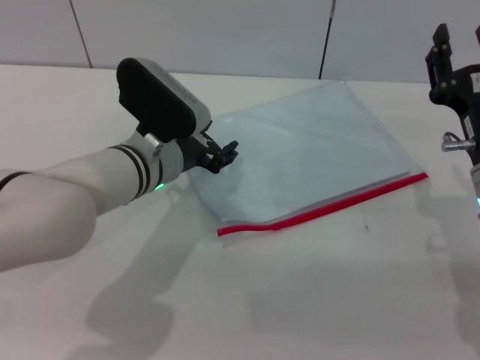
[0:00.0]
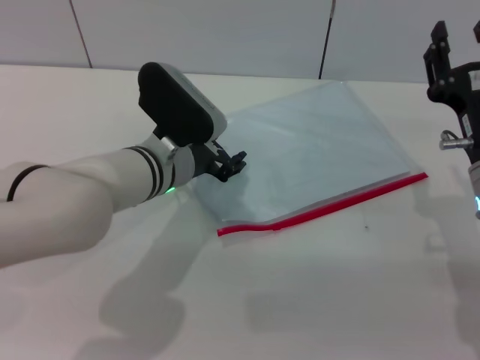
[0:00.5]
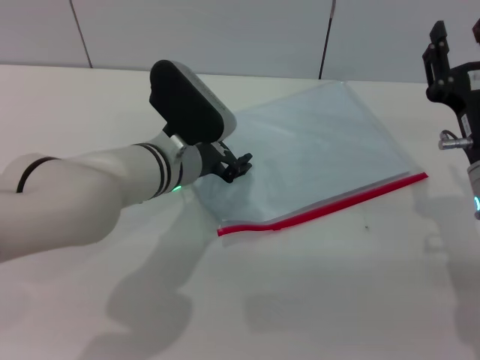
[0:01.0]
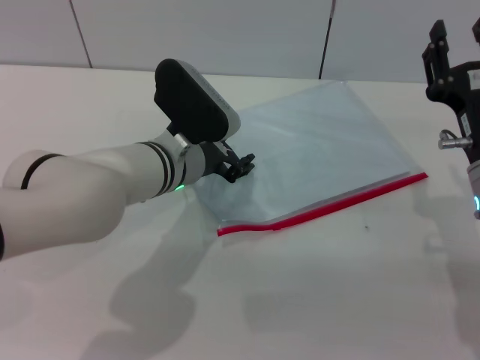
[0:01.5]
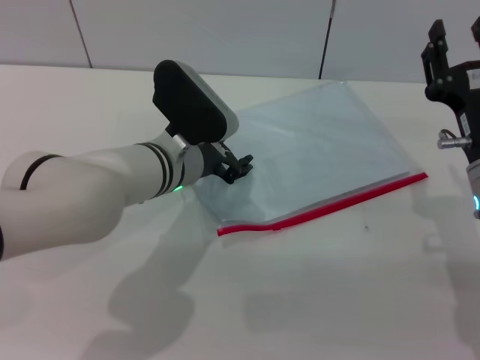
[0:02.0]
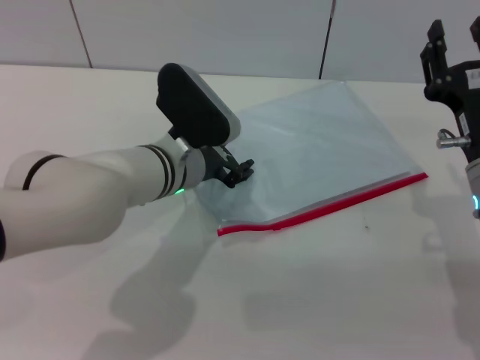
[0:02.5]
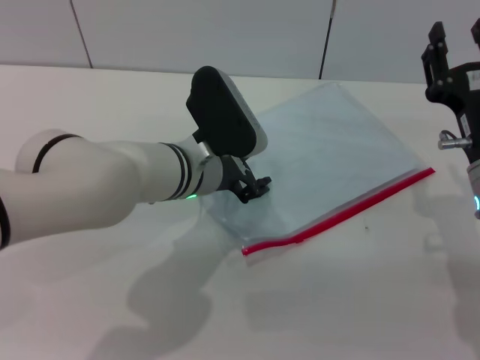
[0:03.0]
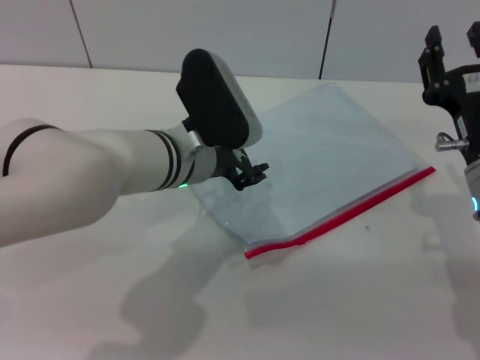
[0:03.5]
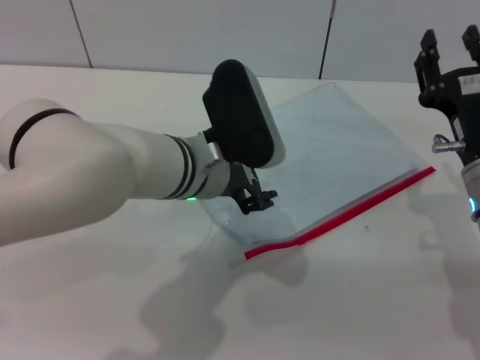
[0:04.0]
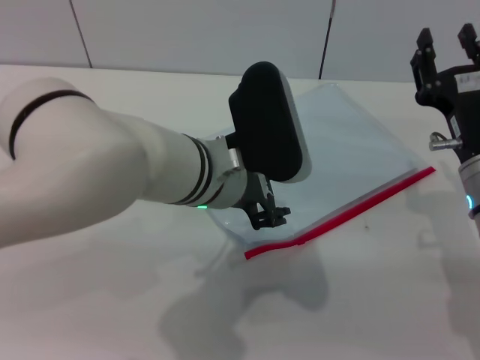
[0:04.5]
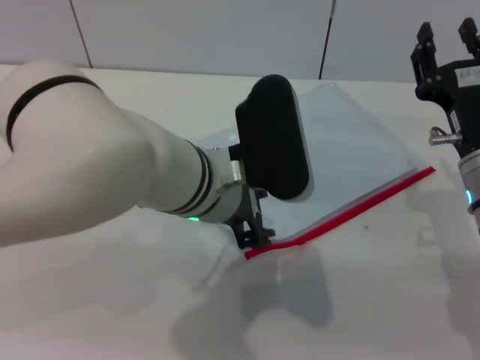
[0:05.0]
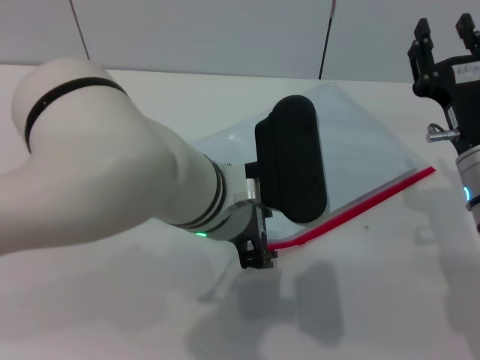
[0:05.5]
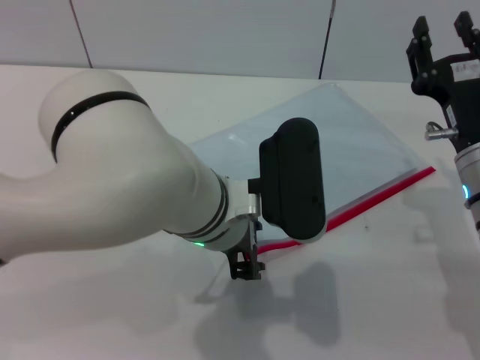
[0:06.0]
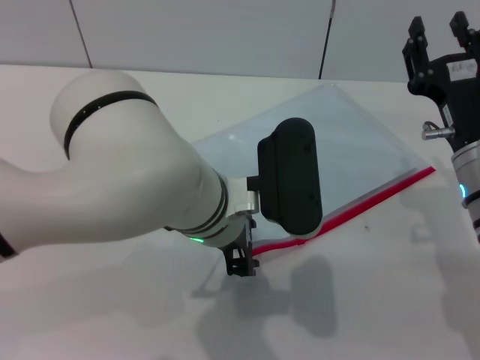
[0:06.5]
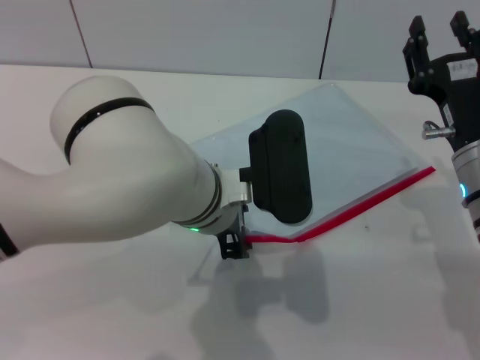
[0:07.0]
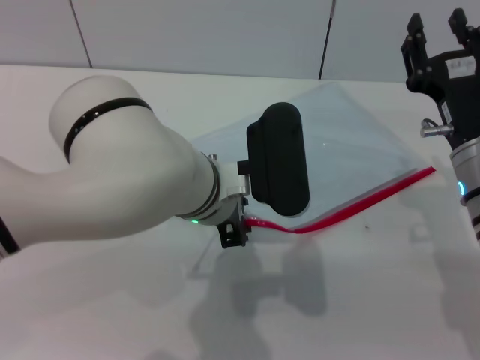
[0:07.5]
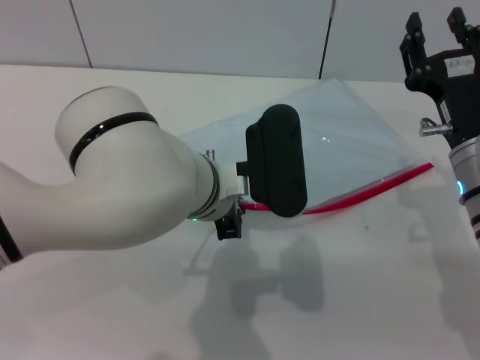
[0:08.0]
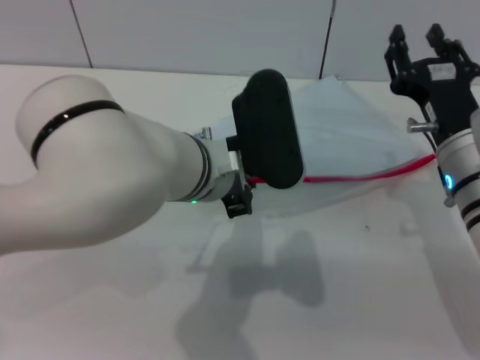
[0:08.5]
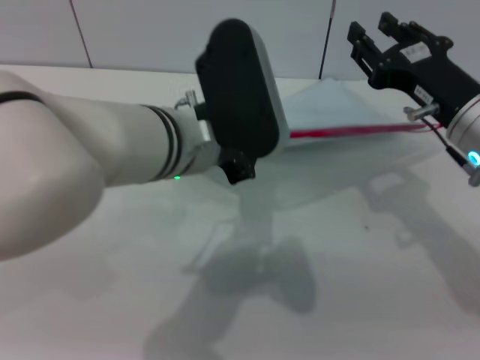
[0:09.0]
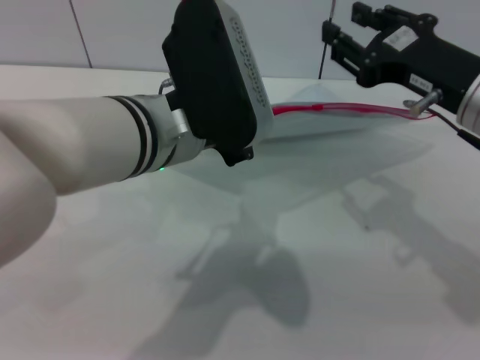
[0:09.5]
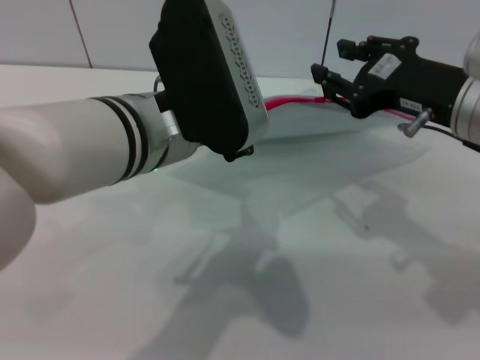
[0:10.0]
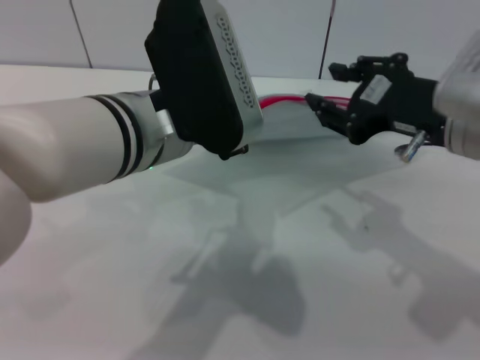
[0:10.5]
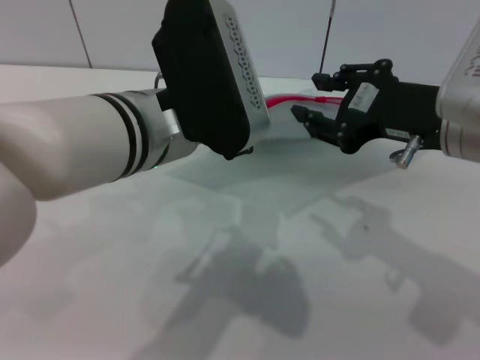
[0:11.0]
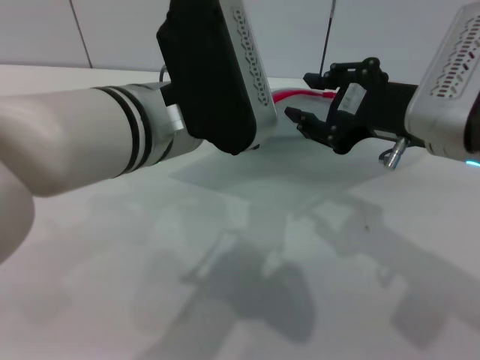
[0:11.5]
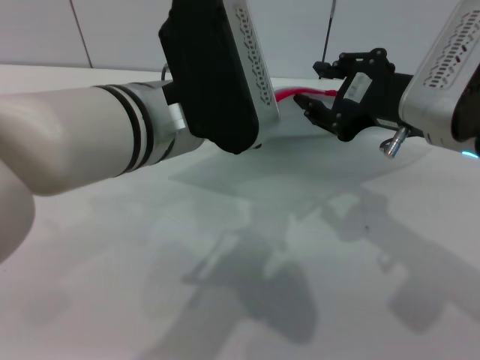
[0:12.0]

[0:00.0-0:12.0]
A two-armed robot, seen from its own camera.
Step, 0:00.0 to 0:08.5: Pick up the transparent plastic bag with the left gripper.
0:00.0 to 0:02.0: The grippers stay close to where they were, moving slightly.
0:02.0 to 0:04.0: The left gripper shifts by about 5 cm.
0:04.0 to 0:06.0: The left gripper shifts some 5 cm backward.
0:06.0 to 0:08.0: The left gripper closes its fingers.
0:08.0 to 0:10.0: Both grippers travel together upward, approximately 10 cm.
0:10.0 to 0:12.0: The grippers make only small movements.

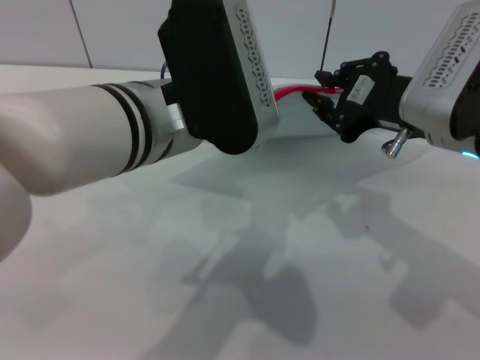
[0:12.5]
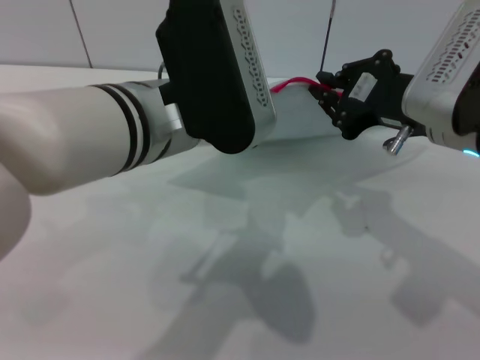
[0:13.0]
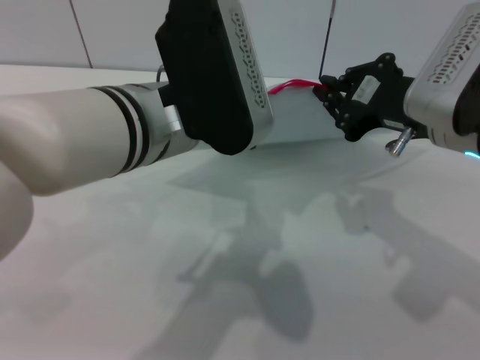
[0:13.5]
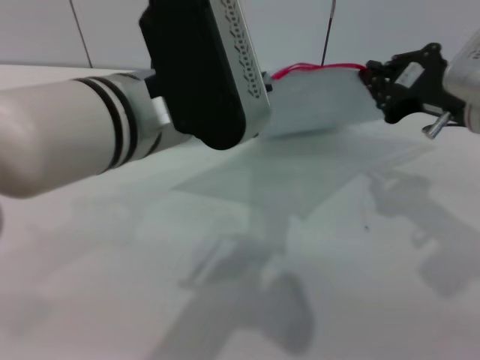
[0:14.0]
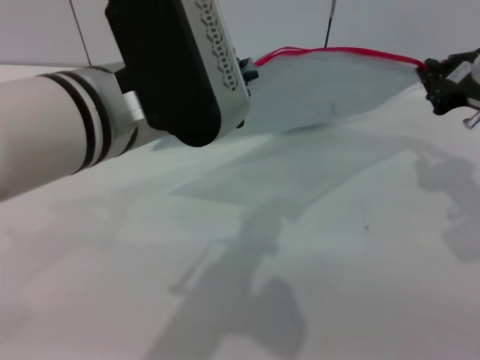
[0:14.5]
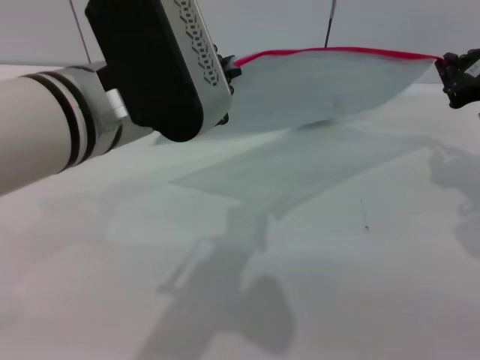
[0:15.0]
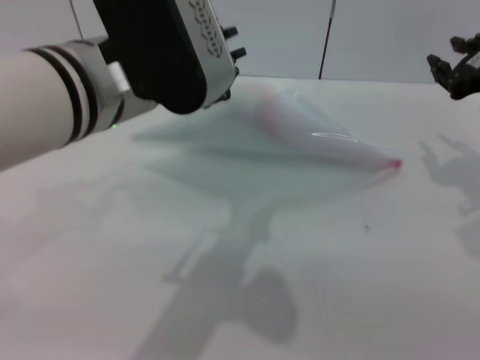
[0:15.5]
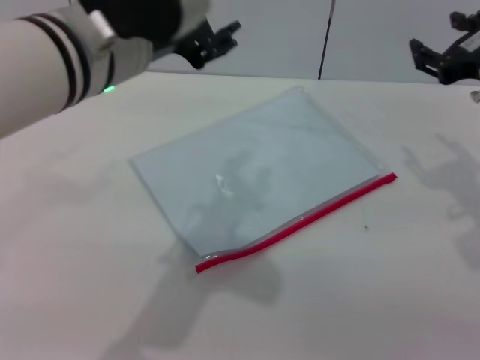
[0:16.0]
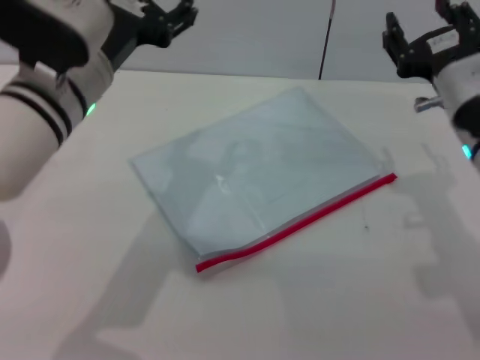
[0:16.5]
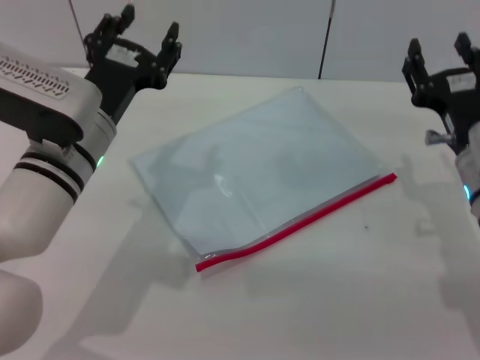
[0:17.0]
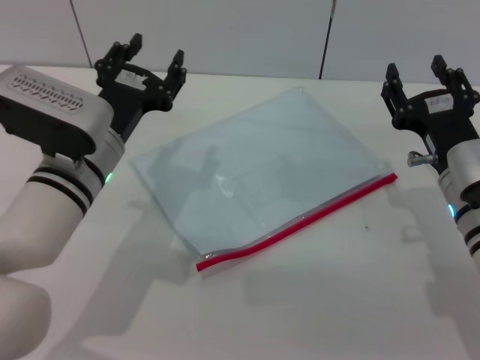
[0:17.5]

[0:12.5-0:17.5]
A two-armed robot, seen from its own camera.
Step, 0:12.5 to 0:15.0: Pulling up the zipper on the transparent plastic bag with the right gripper to close it.
Step, 0:15.5 to 0:16.0: Place the transparent plastic bag.
0:12.5 to 0:15.0: The right gripper moves to the right and forward, some 10 cm.
0:15.0 to 0:17.5: The left gripper goes roughly 15 cm downward, and opens. The right gripper shifts about 15 cm downward, to the left and backward, and opens up.

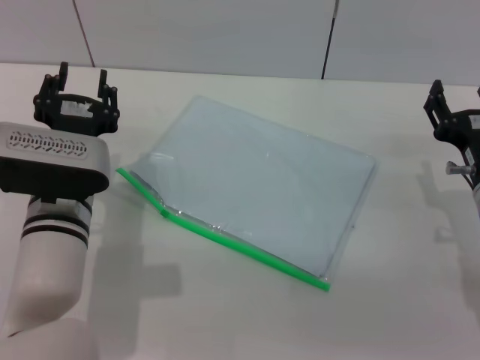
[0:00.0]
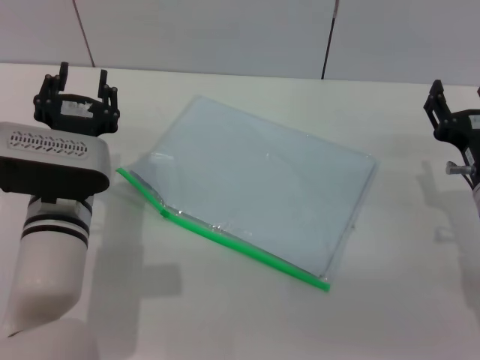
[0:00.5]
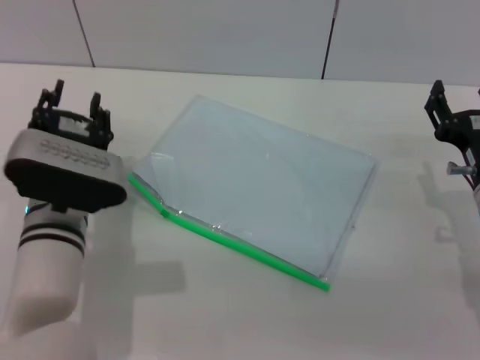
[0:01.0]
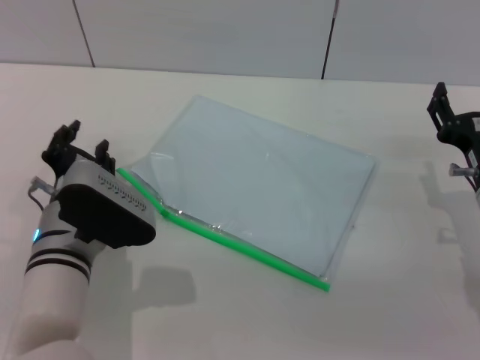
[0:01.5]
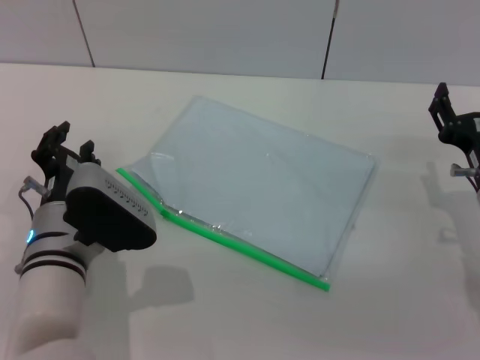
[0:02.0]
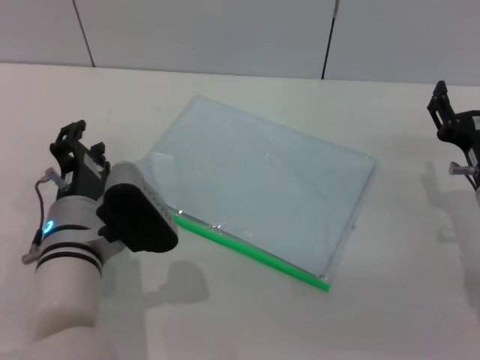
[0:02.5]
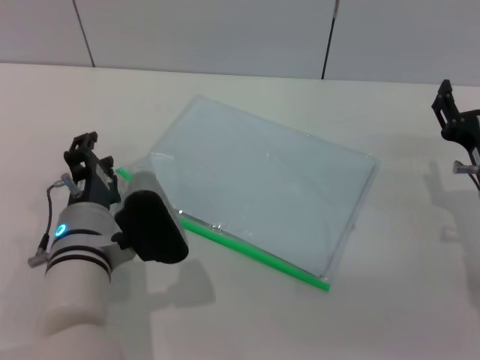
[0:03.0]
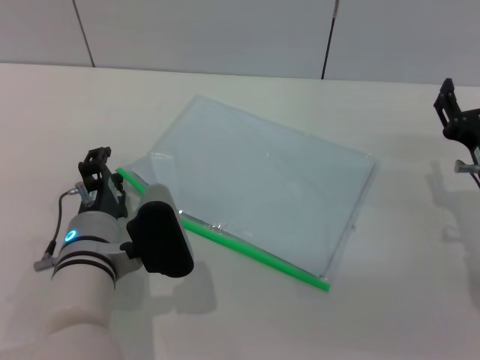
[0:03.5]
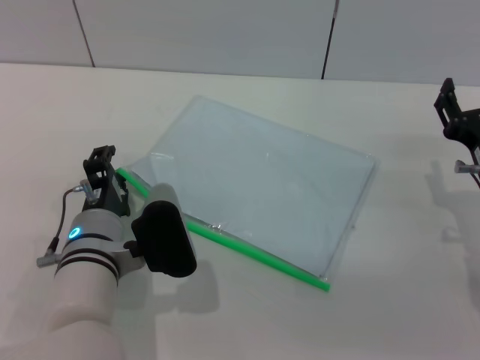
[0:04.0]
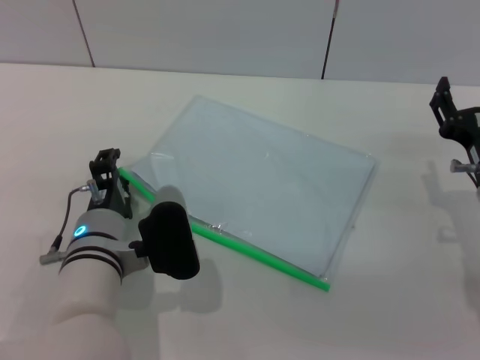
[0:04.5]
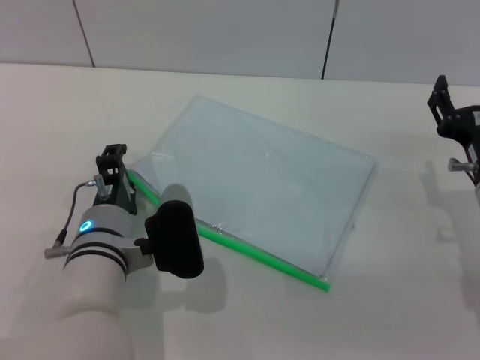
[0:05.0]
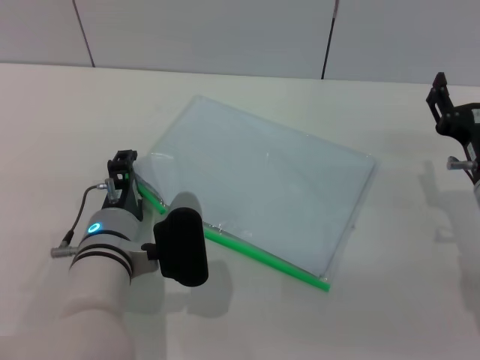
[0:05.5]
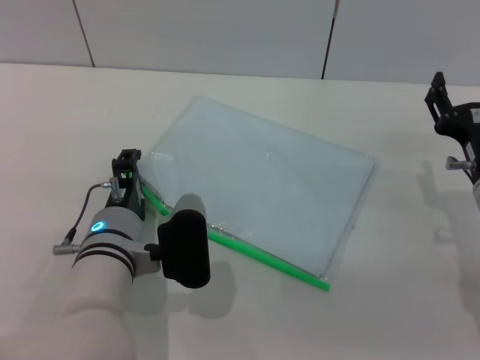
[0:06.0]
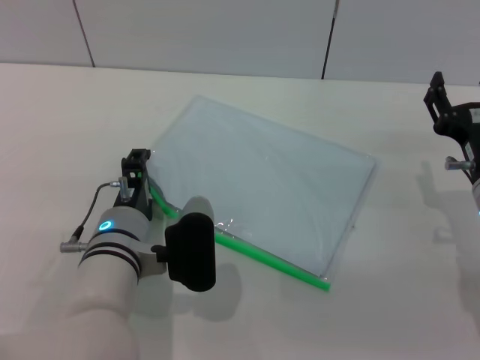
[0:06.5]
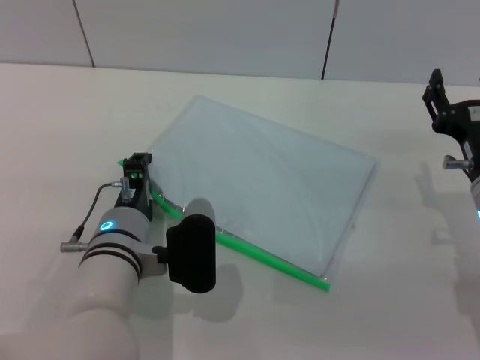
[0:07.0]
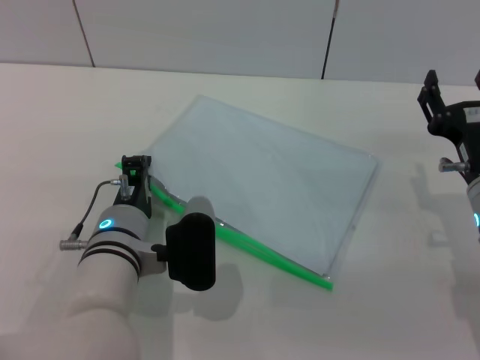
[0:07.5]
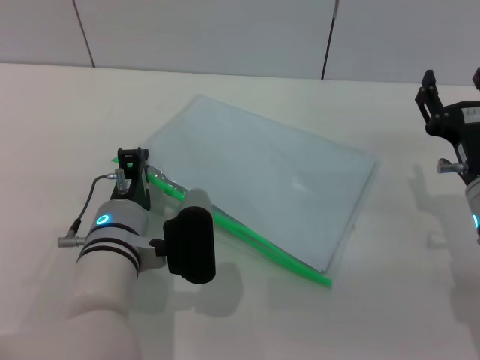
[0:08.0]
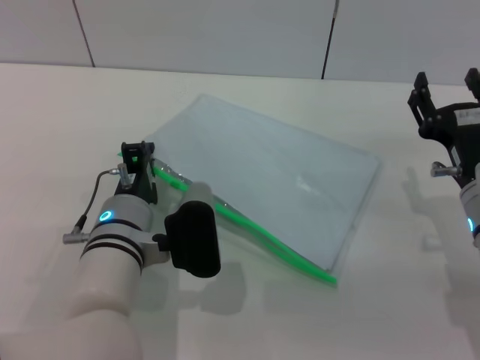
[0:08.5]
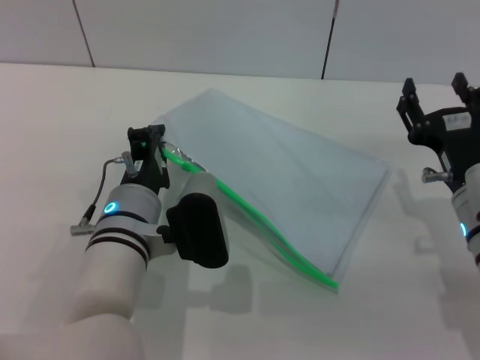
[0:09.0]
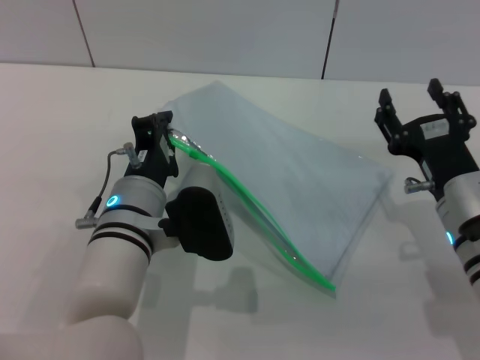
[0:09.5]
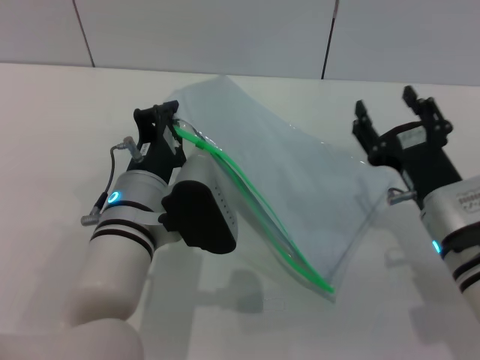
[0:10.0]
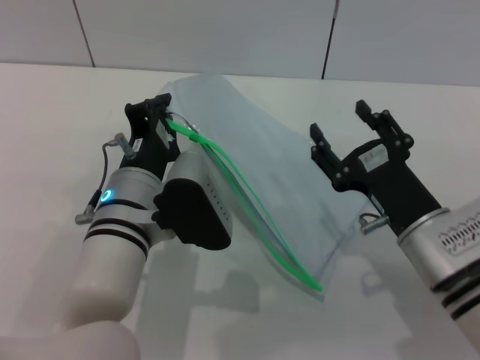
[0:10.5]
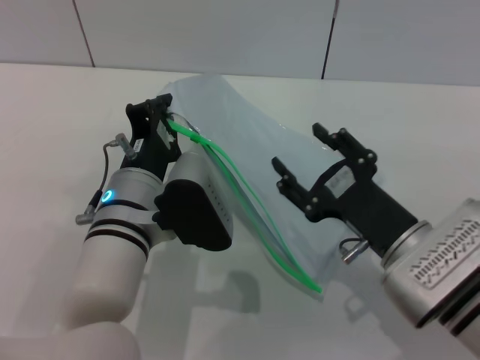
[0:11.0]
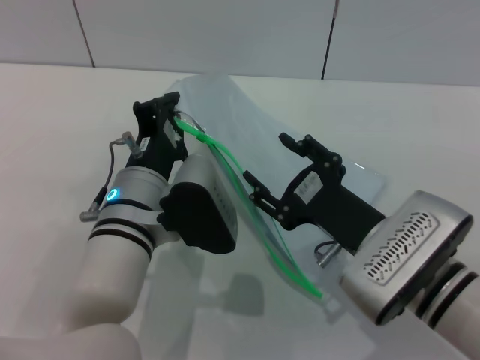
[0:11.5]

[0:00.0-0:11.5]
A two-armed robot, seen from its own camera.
Step, 0:00.0 to 0:07.5: Pick up the transparent plastic bag with the left gripper.
0:04.0 to 0:06.0: There are only small adjustments of the grippers.
0:06.0 to 0:07.5: Both grippers stay put.
0:07.5 to 0:09.5: The grippers stay close to where they were, moving slightly.
0:09.5 to 0:11.5: The right gripper travels to the left by approximately 5 cm.
